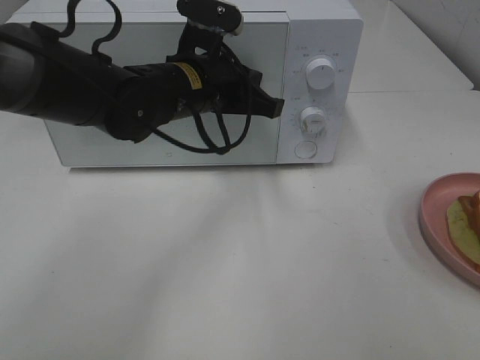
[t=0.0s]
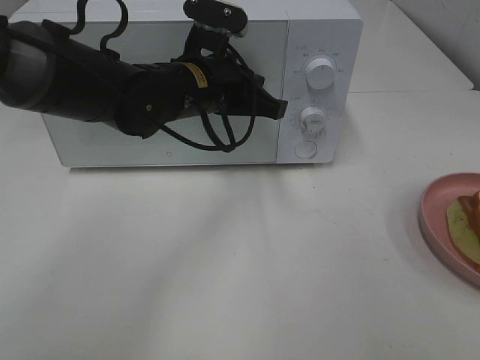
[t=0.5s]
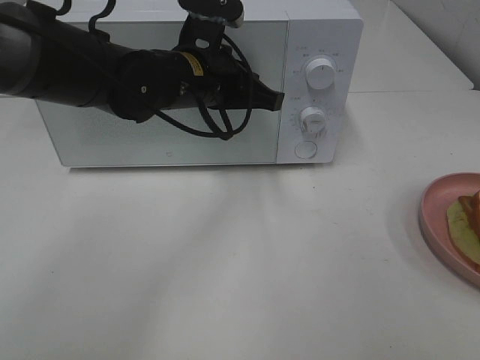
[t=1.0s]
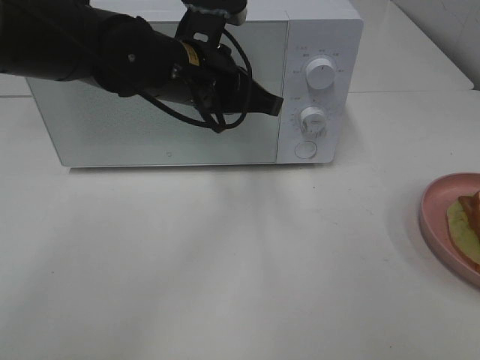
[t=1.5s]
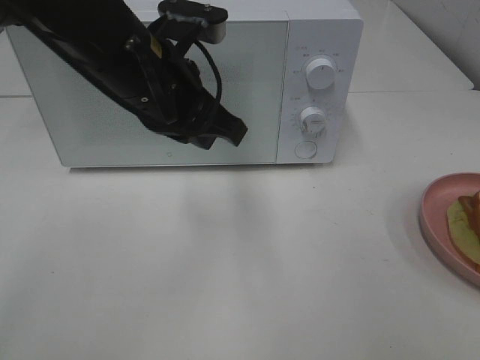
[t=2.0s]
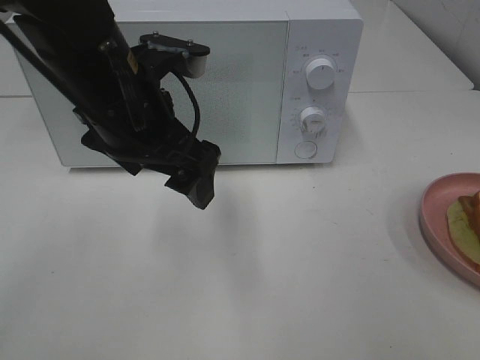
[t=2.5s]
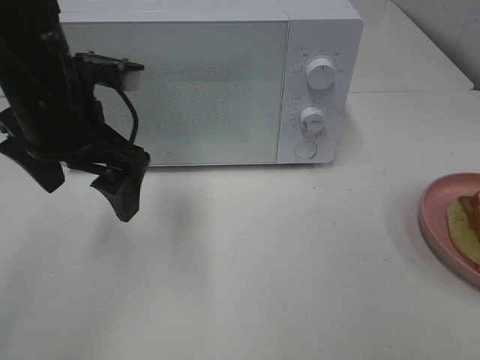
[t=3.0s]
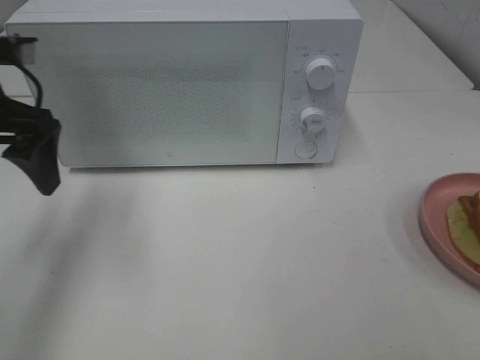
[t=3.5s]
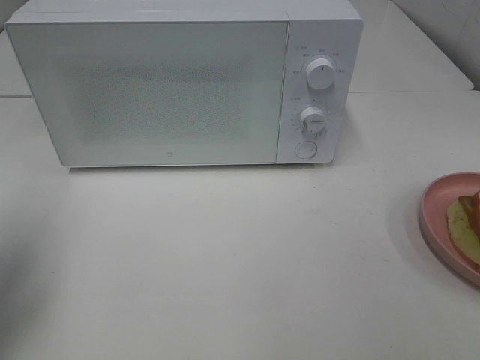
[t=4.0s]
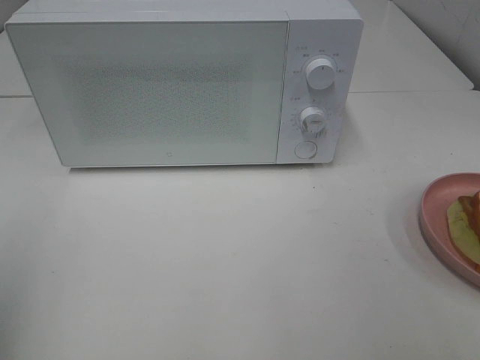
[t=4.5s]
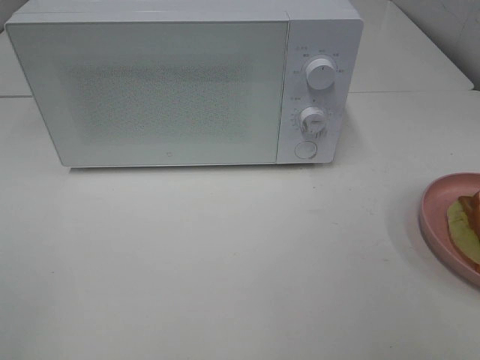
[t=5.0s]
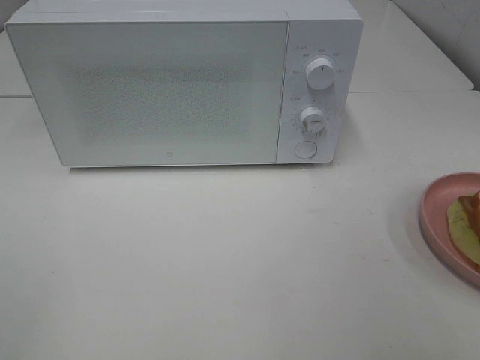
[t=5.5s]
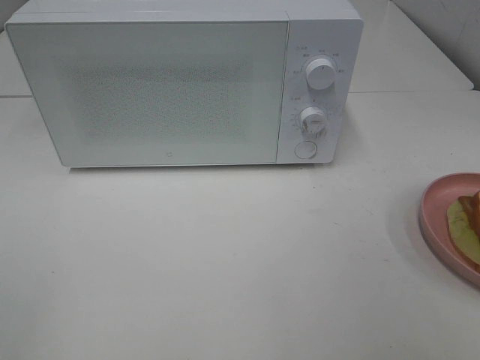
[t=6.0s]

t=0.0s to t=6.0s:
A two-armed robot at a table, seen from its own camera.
Task of the whole recording: Heat Sandwich.
t=0.0s to t=2.0s: The left gripper is displaced backward and upward by approximately 10 cm.
t=2.0s to t=4.0s: The left gripper moves to the left, about 25 cm, and opens its fingers.
t=4.0s to t=6.0s: The left gripper goes roughly 20 cm backward.

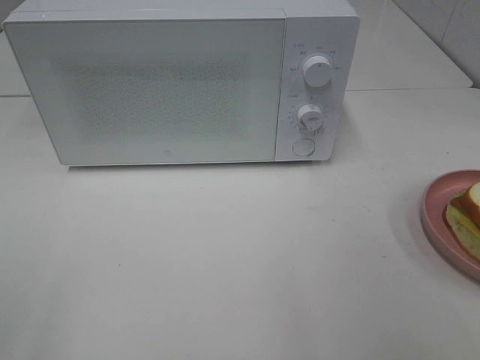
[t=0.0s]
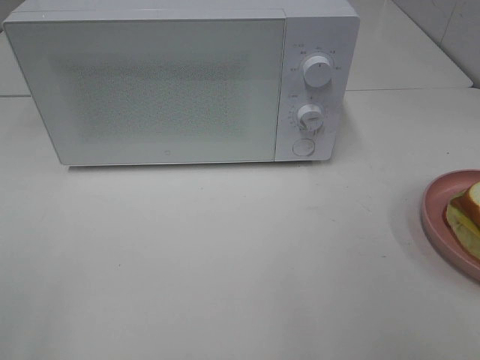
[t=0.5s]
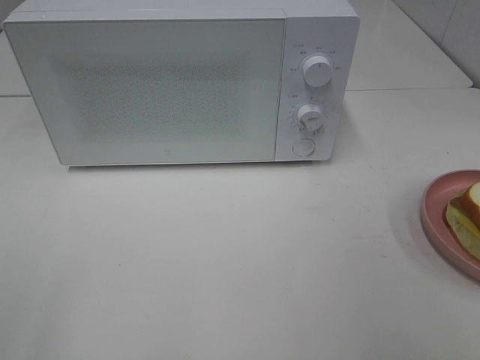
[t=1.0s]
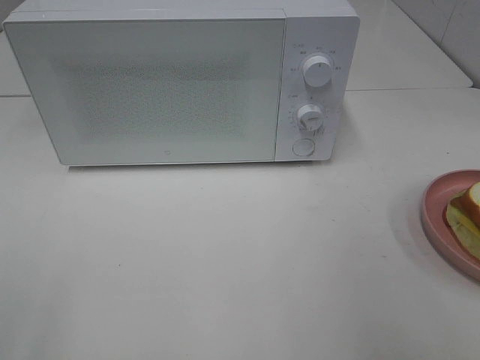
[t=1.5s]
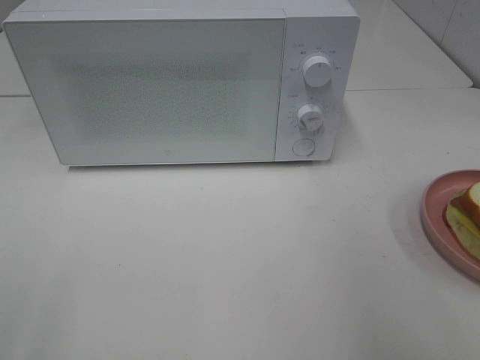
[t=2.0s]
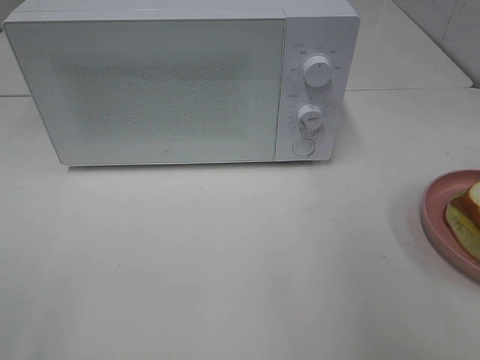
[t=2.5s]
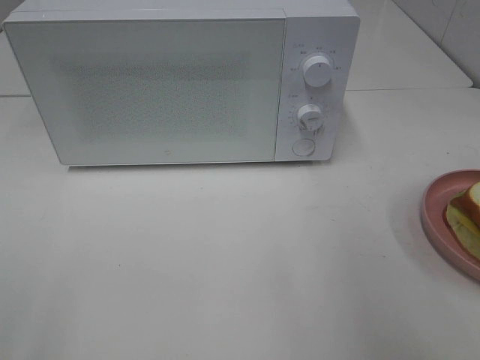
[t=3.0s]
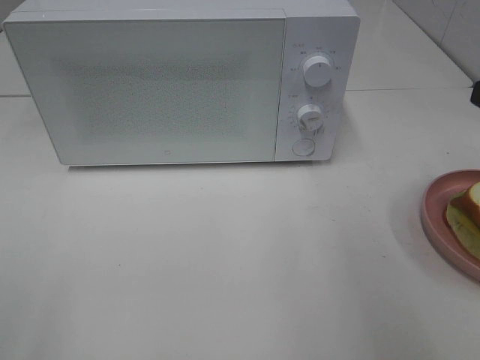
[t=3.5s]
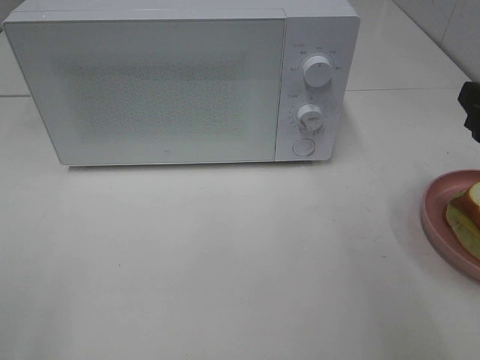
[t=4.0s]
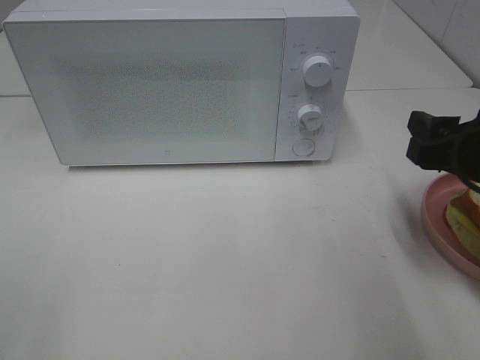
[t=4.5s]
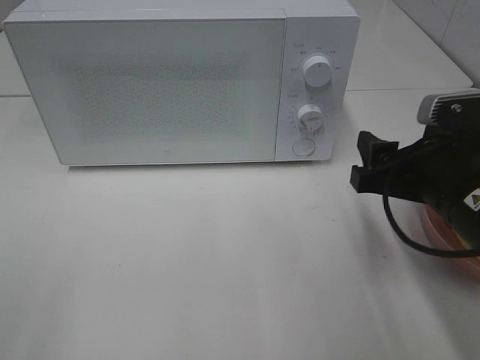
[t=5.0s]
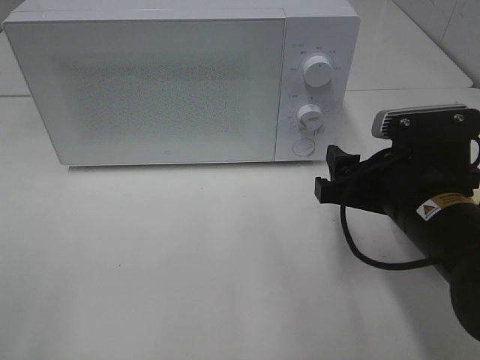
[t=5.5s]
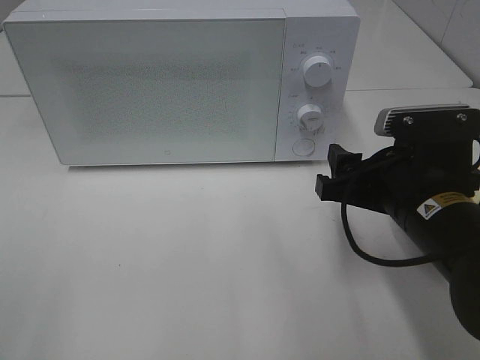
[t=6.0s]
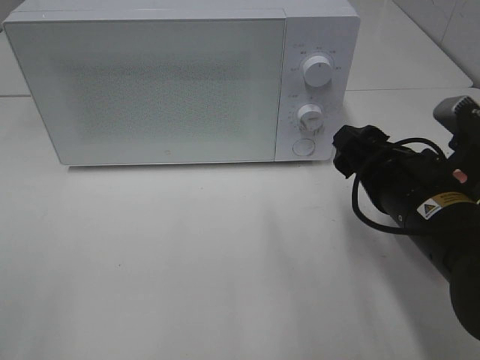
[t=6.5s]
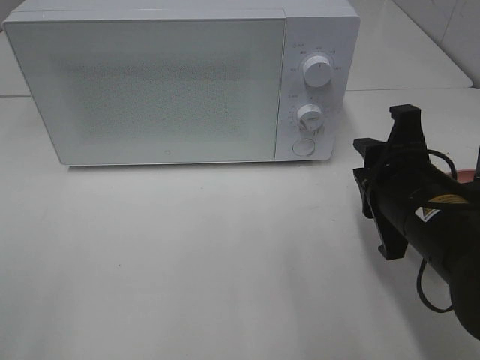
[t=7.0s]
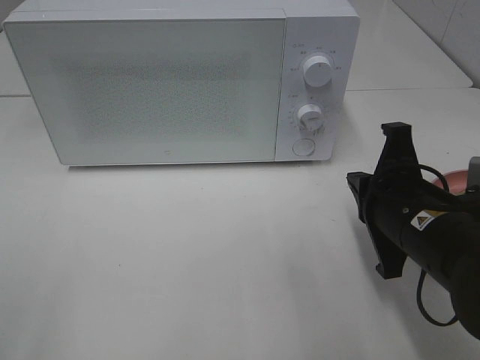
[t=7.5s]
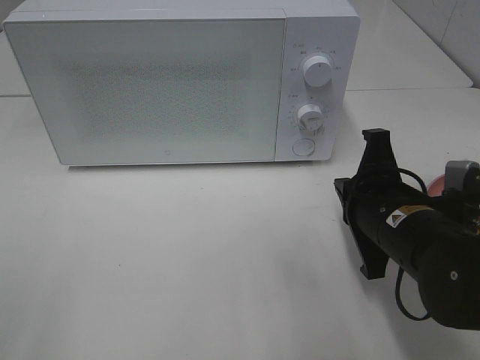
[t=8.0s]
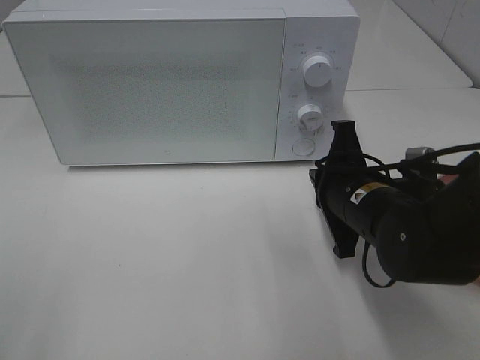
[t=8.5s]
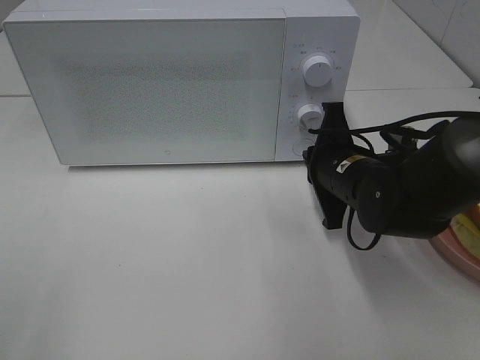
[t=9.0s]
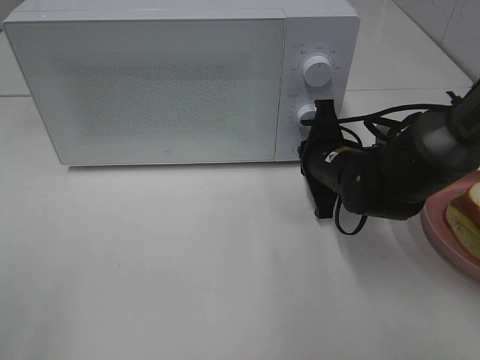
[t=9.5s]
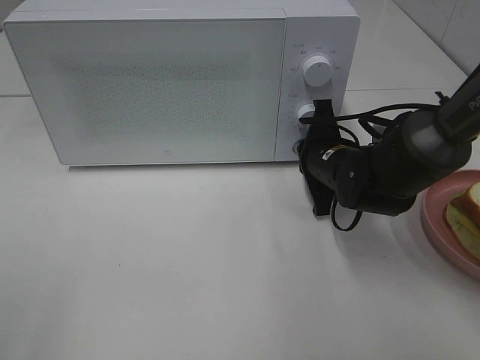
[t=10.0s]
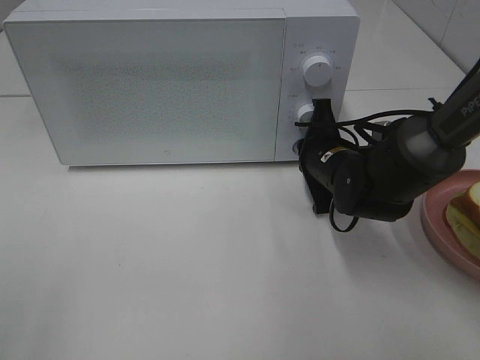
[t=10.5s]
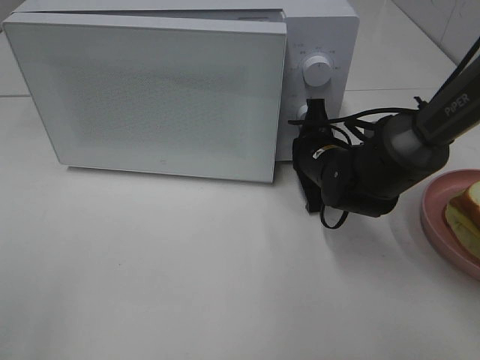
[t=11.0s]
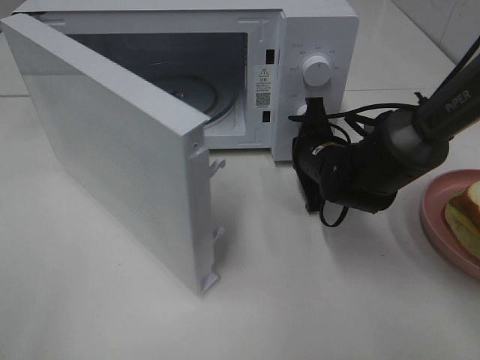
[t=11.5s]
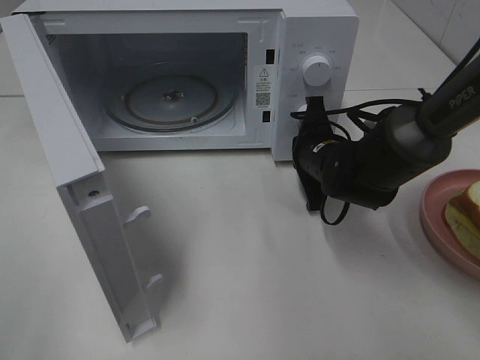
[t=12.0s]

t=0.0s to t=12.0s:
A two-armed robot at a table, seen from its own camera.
Task of the whole recording: Heat Sandwich.
t=2.0s to t=4.0s: The right gripper moves forward and downward, approximately 10 cm.
t=4.0s to t=6.0s: The right gripper is displaced to the left and downward by approximately 15 cm.
t=6.0s to t=8.0s: The right gripper closes its fingers.
t=8.0s to t=10.0s: The right gripper shifts roughly 15 cm forward.

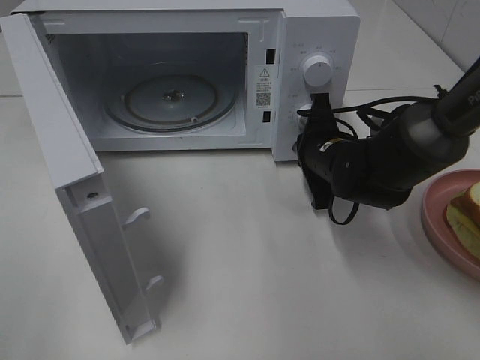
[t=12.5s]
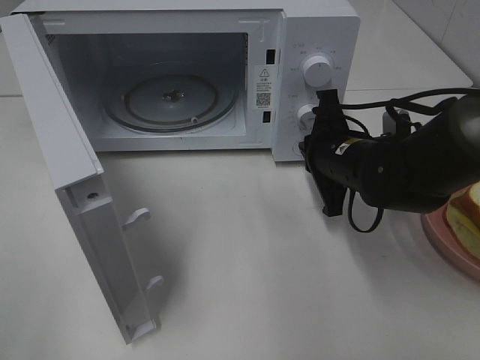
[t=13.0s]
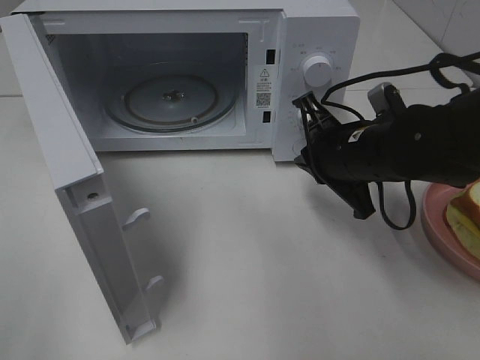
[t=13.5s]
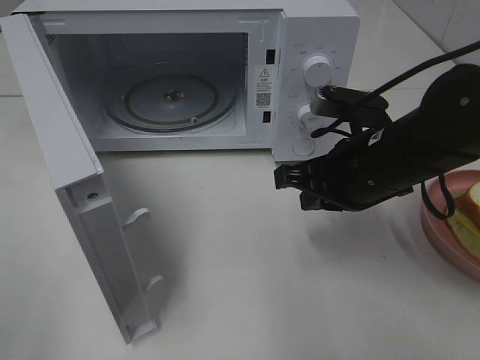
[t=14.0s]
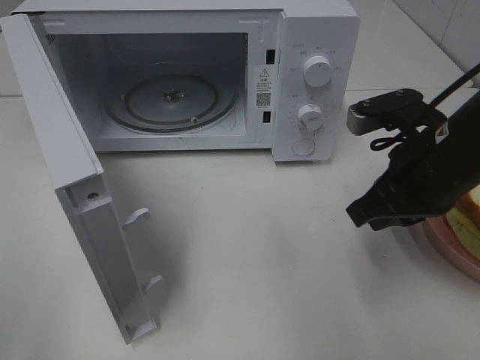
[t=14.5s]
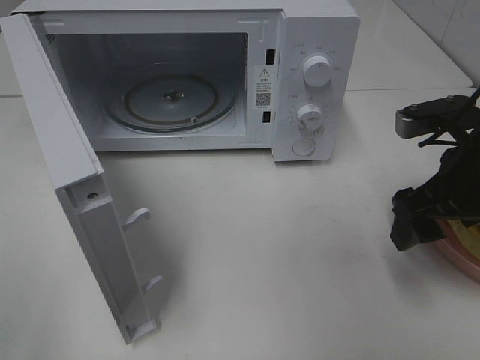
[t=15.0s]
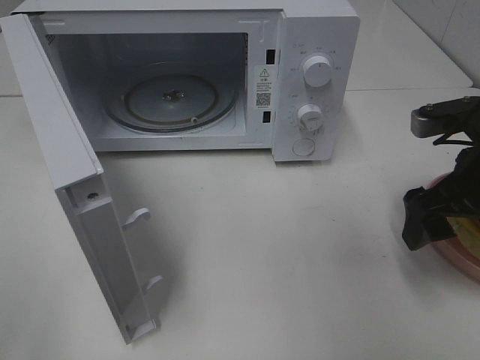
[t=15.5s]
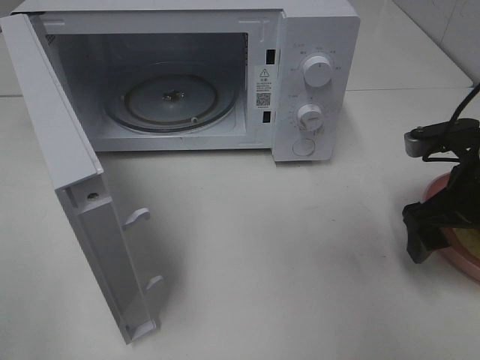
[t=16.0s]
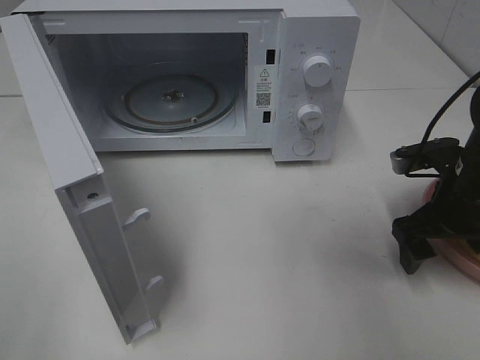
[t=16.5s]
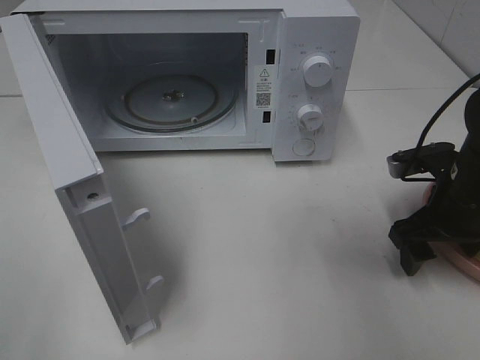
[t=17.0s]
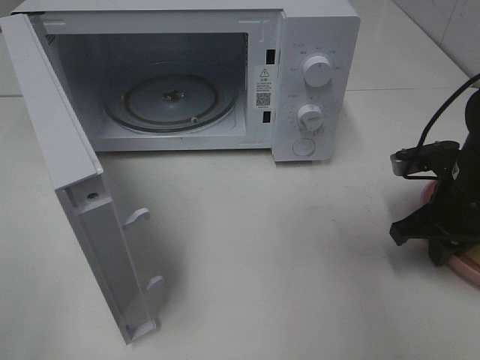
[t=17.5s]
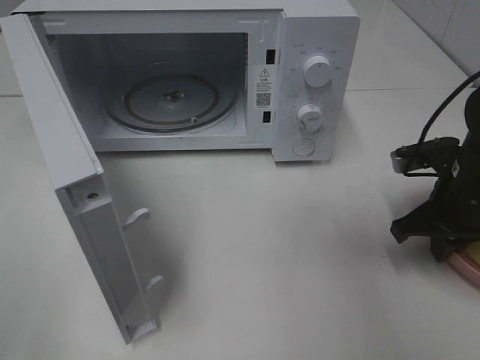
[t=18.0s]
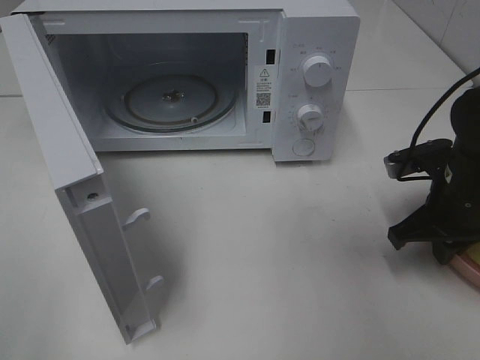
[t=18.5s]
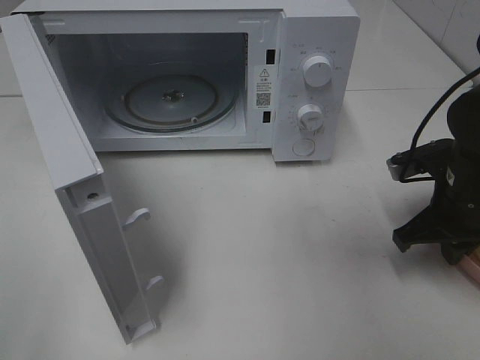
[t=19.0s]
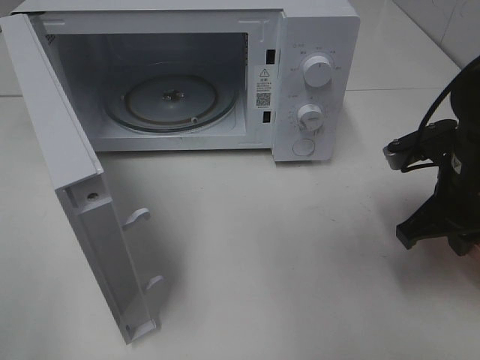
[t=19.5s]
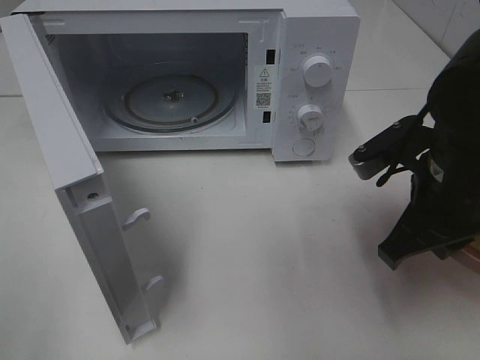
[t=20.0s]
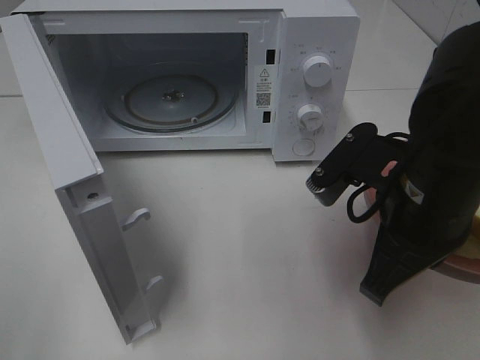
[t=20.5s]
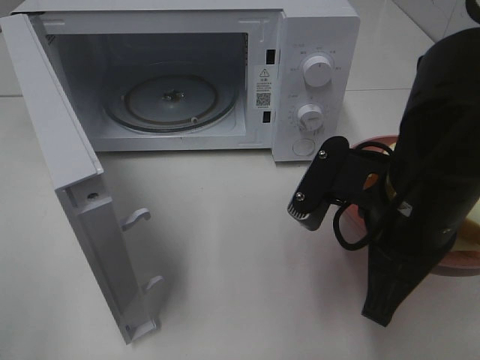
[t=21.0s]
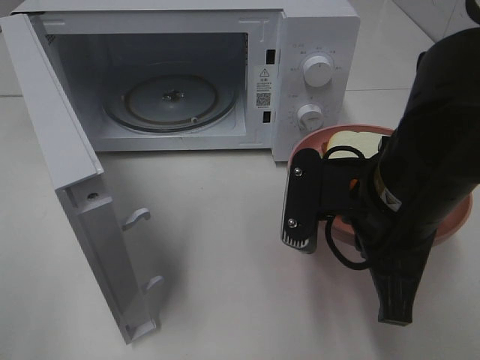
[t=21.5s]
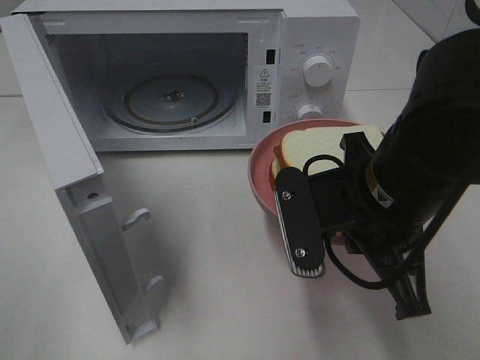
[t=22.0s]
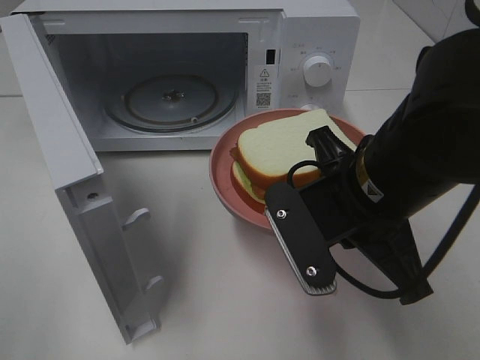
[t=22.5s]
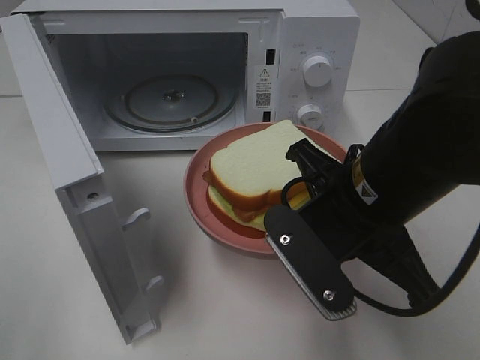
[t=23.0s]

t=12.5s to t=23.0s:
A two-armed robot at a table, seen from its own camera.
Task of the whole recording: Heat Sandwich.
Step, t=13.5s to t=18.0s: Right hand: grab the plate with the sandwich.
t=12.5s to t=14.5s: The right gripper shifts about 15 cm backward, upward and to the right.
t=14.5s to t=16.5s: The right gripper travels downward and to the right by roughly 10 cm, and opens up.
t=16.5s to t=19.0s: The right gripper closes up.
t=19.0s to t=21.0s: The right gripper is displaced to the left, backward and upward by about 15 cm.
